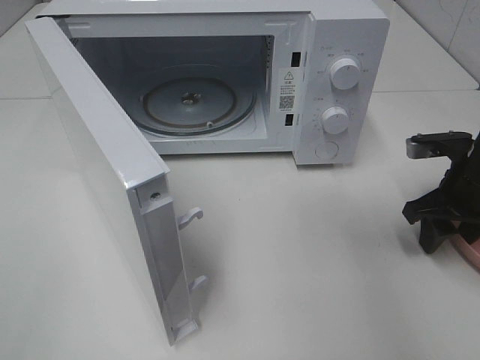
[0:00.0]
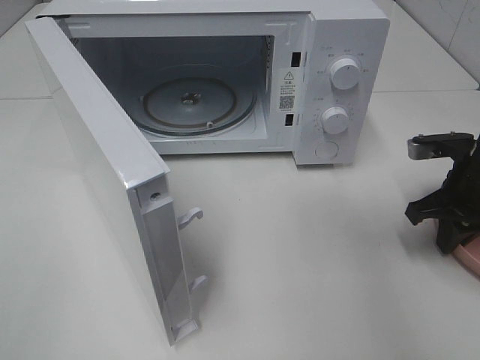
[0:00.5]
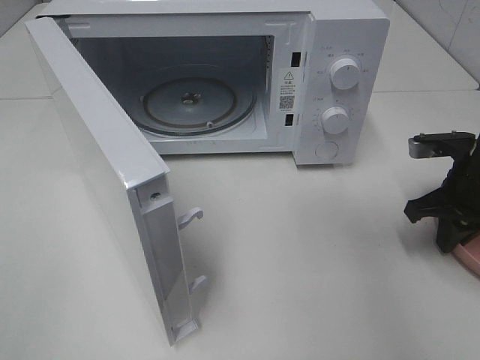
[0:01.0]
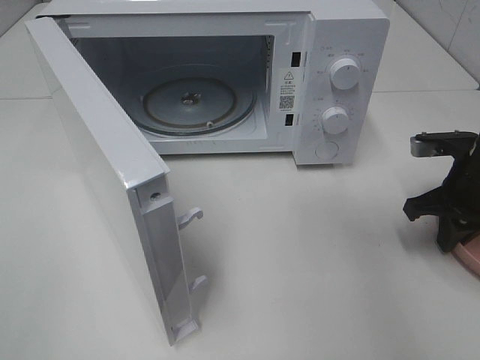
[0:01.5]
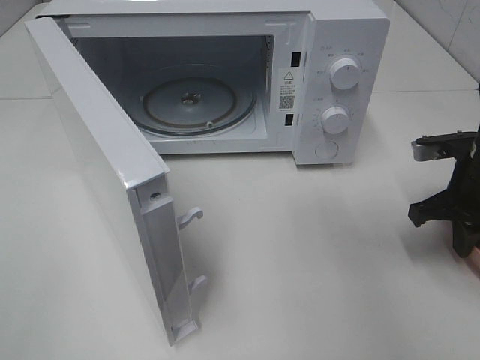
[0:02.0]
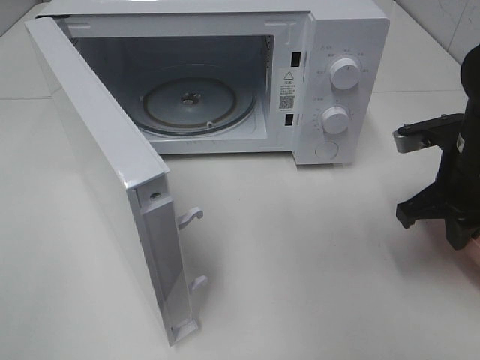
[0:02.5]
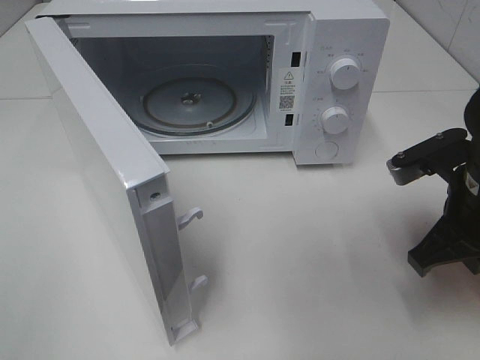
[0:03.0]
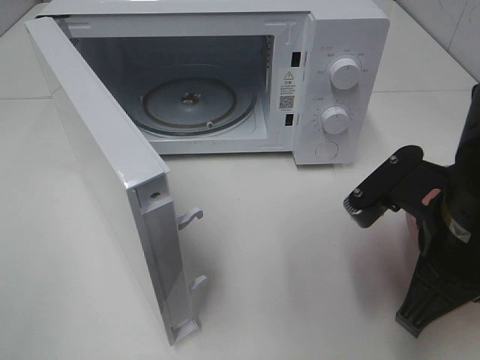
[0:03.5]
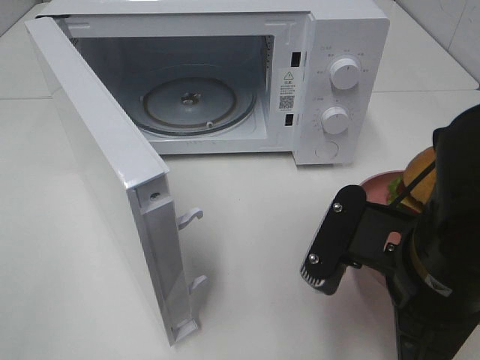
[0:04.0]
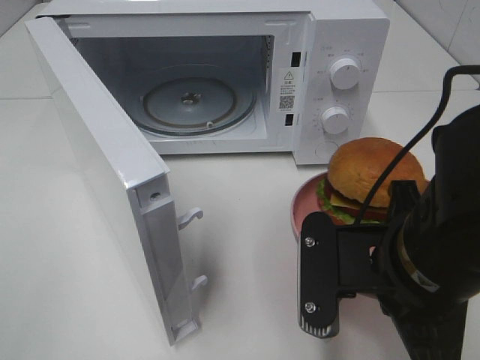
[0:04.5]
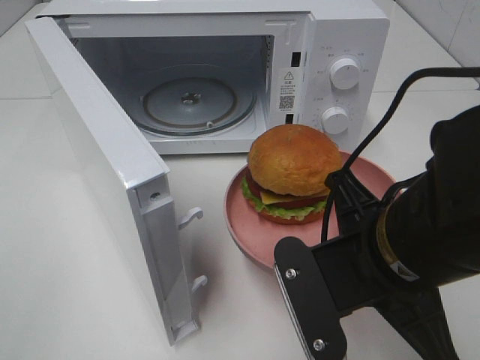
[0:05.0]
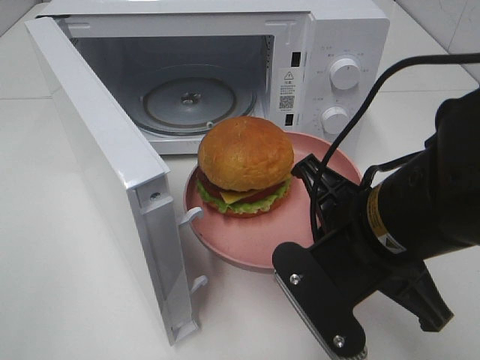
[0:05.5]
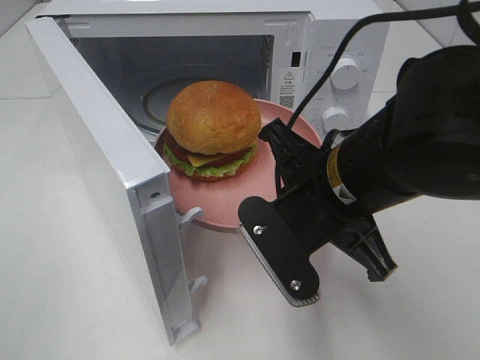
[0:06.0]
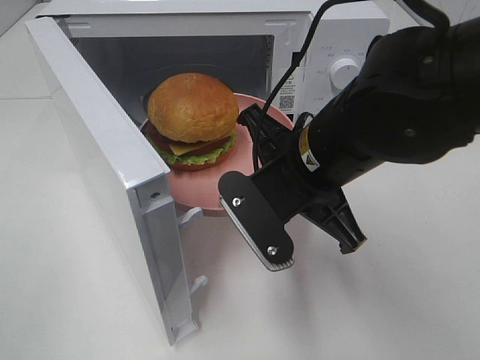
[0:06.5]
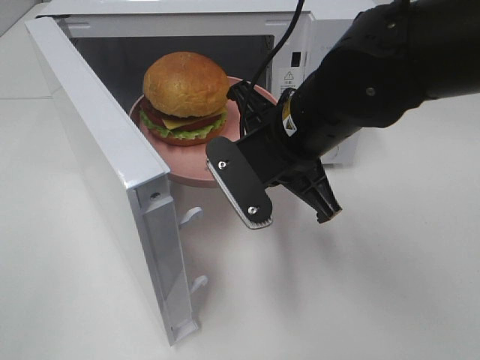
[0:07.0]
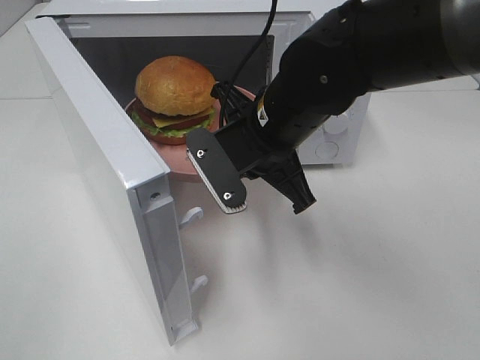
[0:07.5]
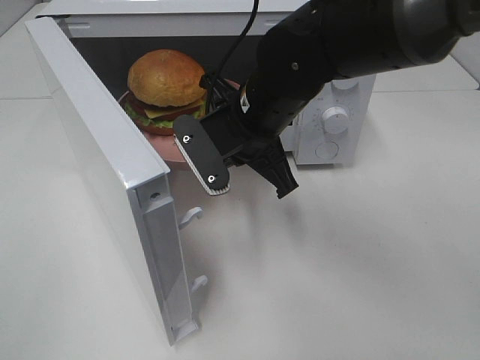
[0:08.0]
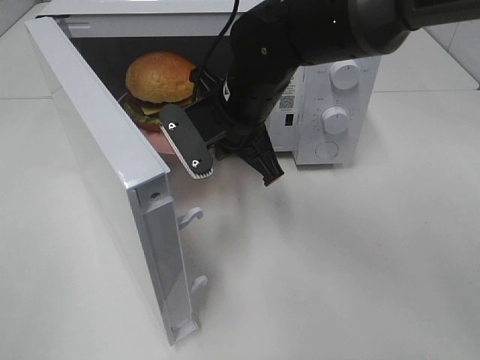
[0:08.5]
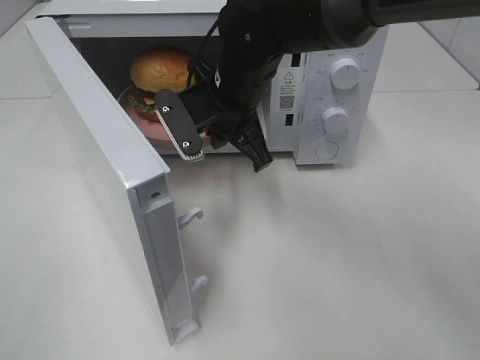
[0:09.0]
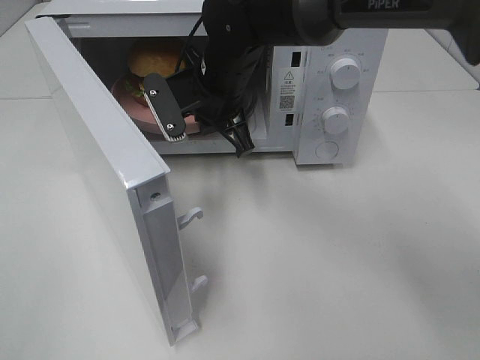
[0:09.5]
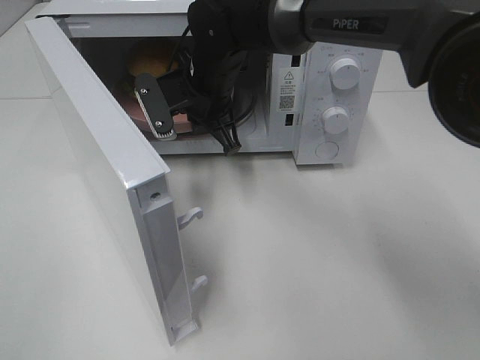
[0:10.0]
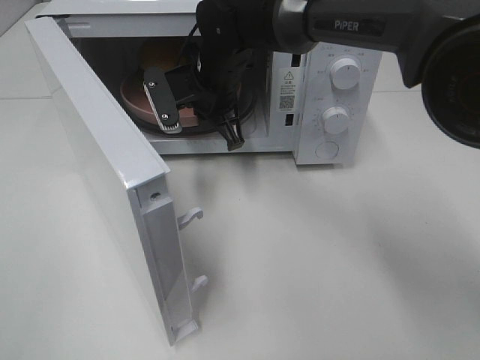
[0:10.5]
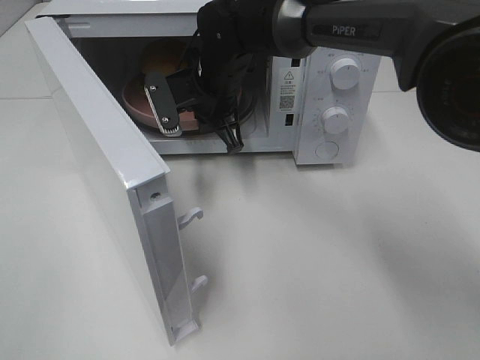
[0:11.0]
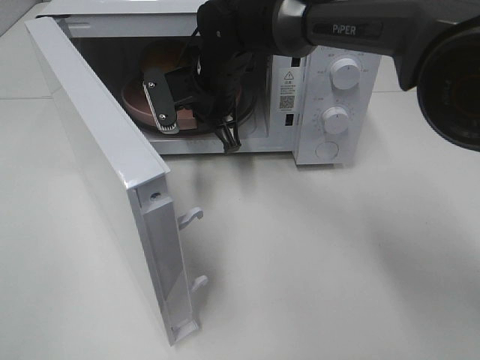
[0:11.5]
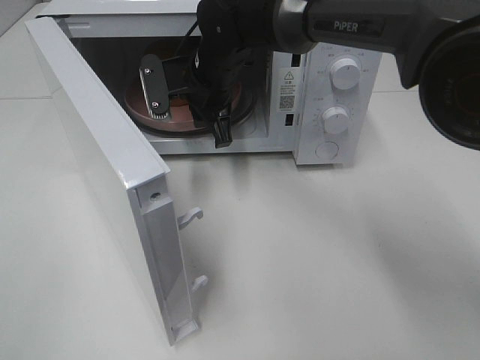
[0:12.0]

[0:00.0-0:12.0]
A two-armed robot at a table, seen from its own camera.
Task of the whole recording: Heat the burger.
Step, 2.0 to 11.5 s: Right hand: place the plate in the microwave.
0.0 to 2.0 s: The right gripper closes its fingers.
2.0 to 4.0 s: The right gripper heads backward and to the left, covering about 20 cm.
4.0 to 6.0 s: The right gripper heads forward and to the left, covering roughly 10 cm.
6.0 to 8.0 s: The right gripper moves forward and to the left, about 15 cm.
8.0 to 10.0 s: The right gripper goes about 10 cm forward and to the left.
10.0 to 12.0 s: The grippers stay close to where they were, moving slightly.

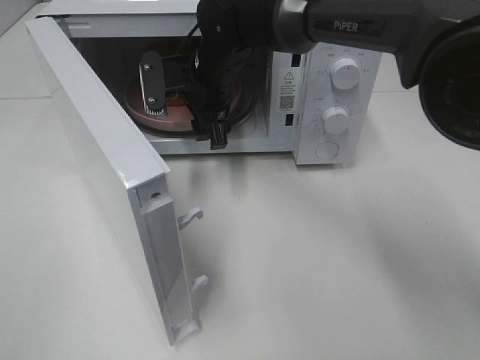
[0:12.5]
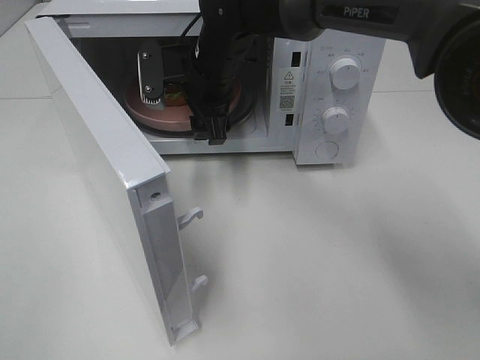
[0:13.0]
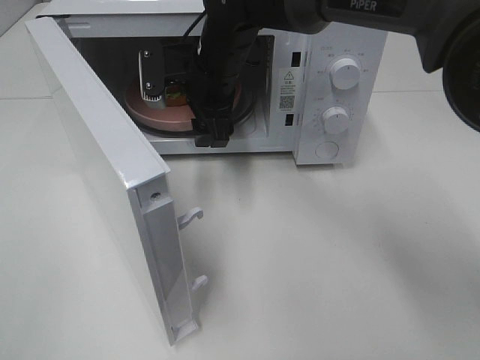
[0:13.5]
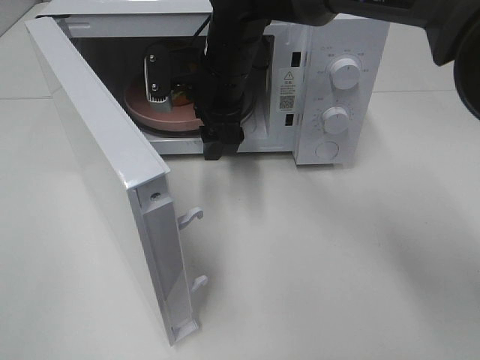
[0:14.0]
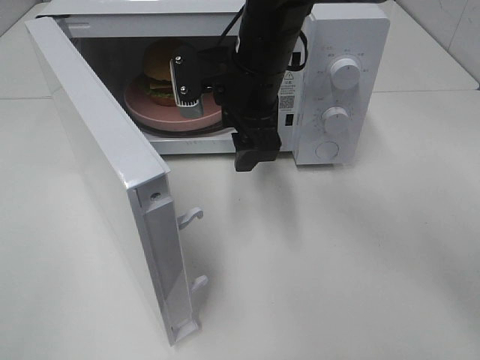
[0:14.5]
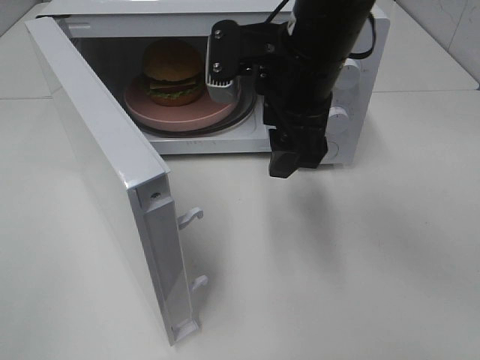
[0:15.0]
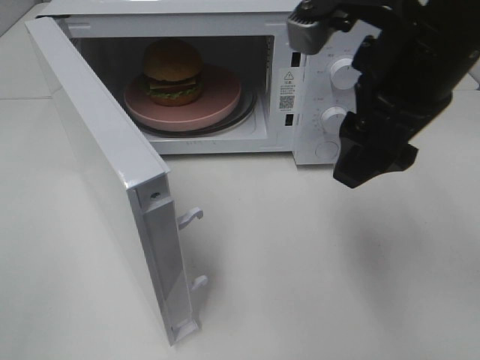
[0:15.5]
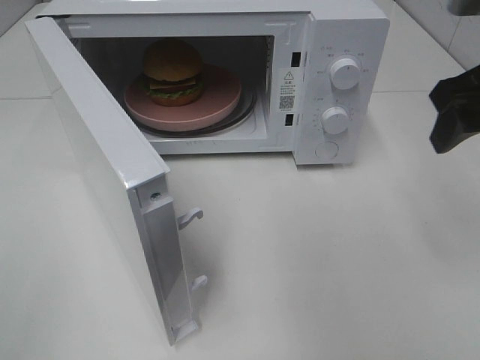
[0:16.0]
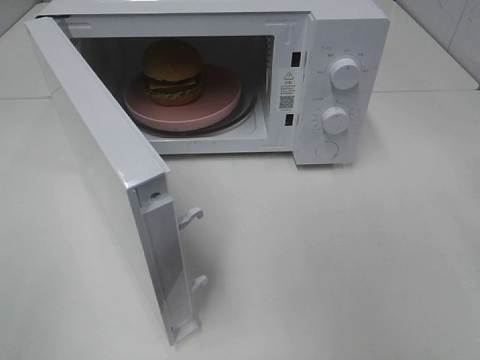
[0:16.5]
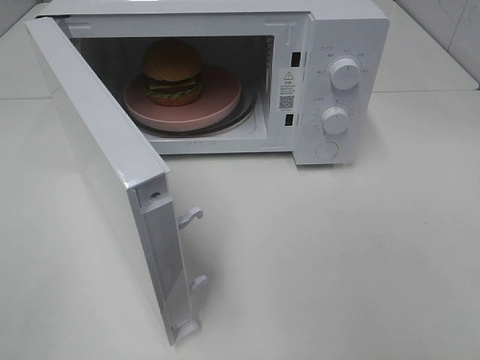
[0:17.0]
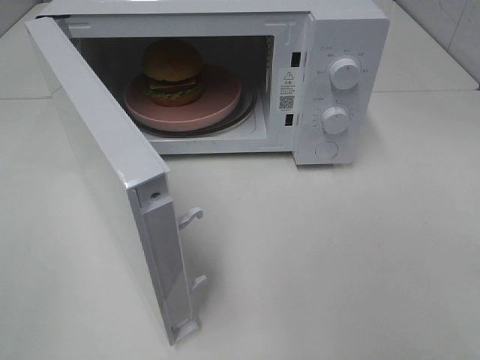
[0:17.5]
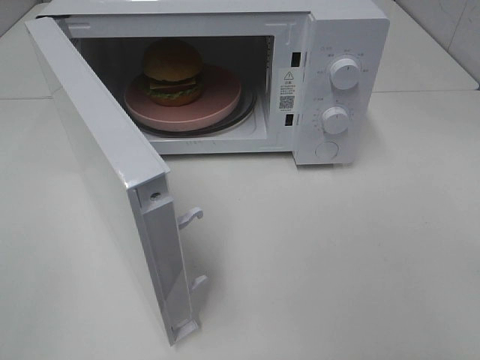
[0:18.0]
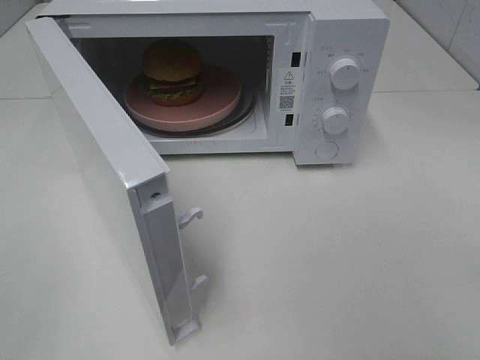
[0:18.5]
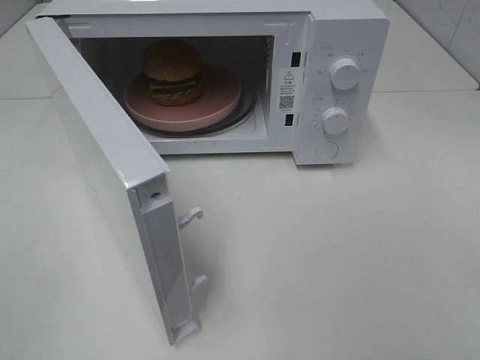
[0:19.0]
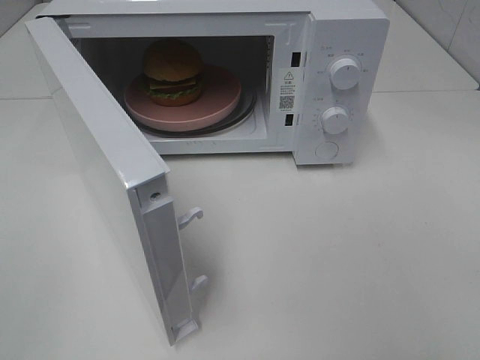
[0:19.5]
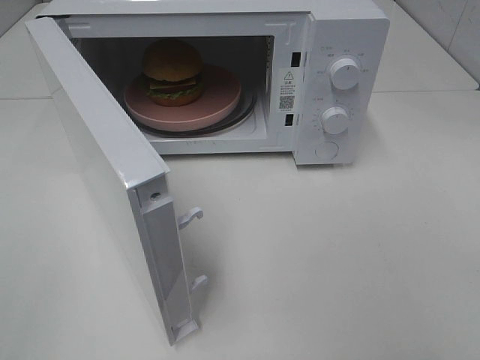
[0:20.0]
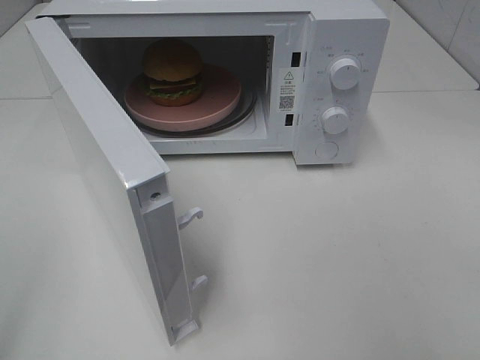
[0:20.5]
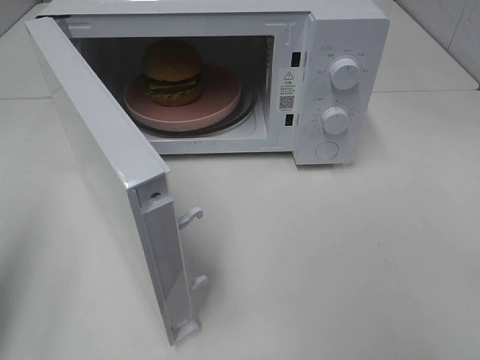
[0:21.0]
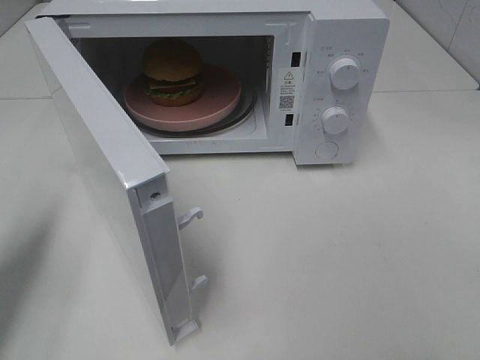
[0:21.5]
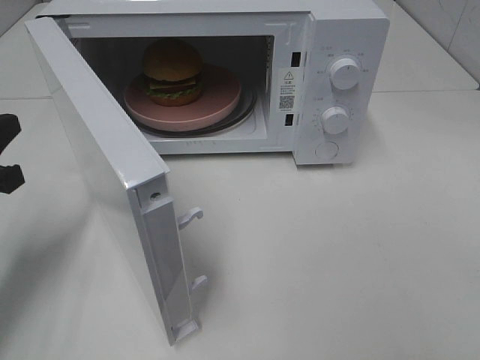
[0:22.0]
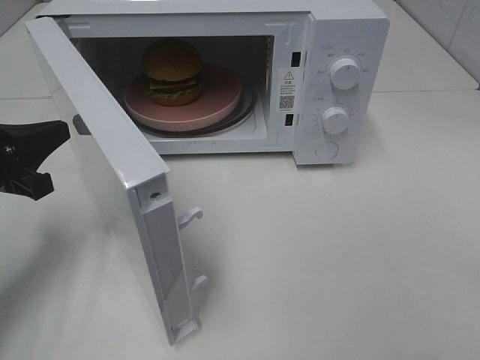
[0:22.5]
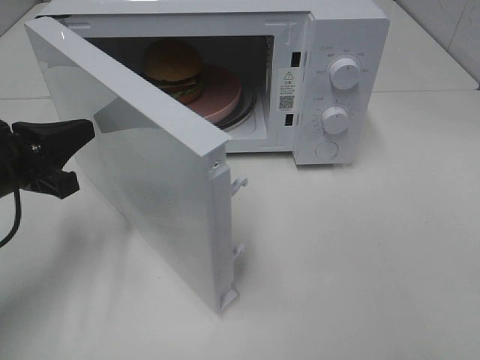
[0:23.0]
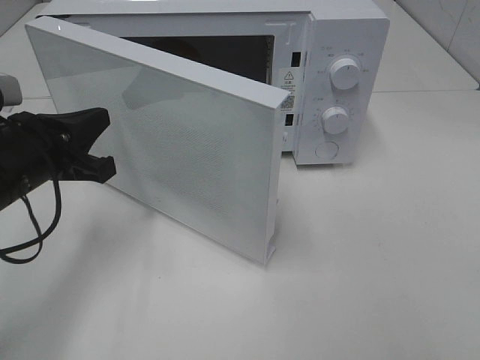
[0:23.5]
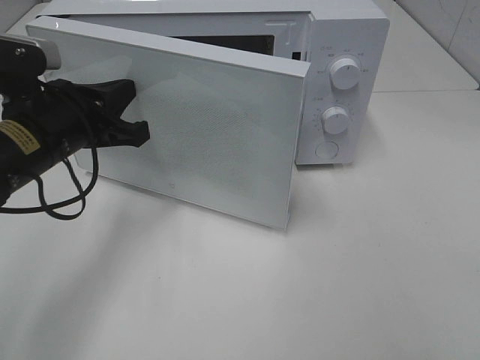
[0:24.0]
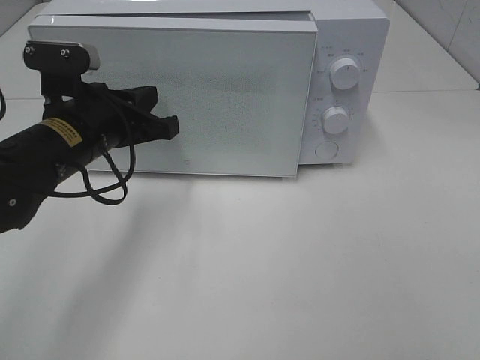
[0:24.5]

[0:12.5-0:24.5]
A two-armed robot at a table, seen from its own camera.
Task of the whole recording: Heat the burger.
12.5 to 14.5 s: The right gripper is displaced backward and to the right by approximately 10 cm.
14.5 to 16.5 s: The right gripper heads to the right and backward, covering approximately 30 cm.
20.5 to 22.5 s: The left gripper goes about 25 cm forward and downward, and closes.
22.5 to 24.5 s: The left gripper travels to the right by roughly 10 cm.

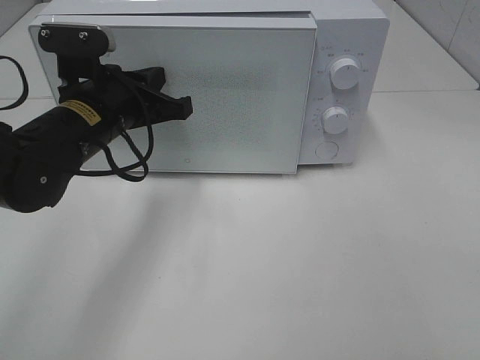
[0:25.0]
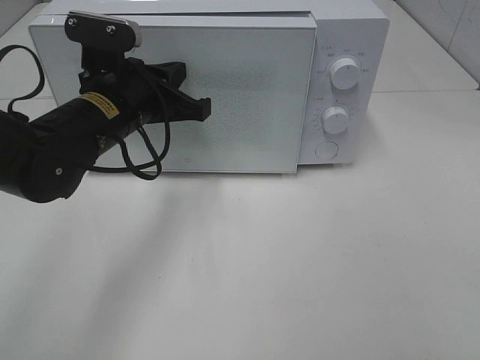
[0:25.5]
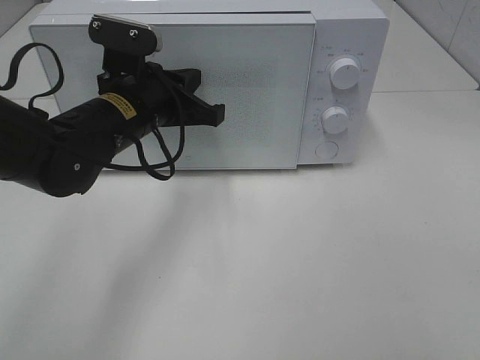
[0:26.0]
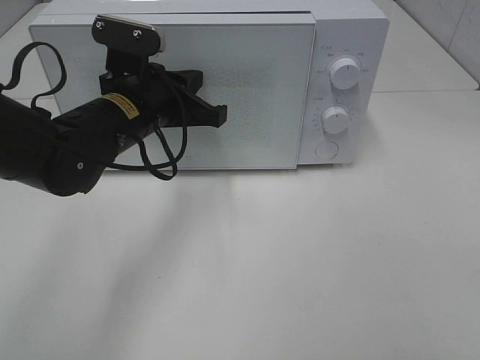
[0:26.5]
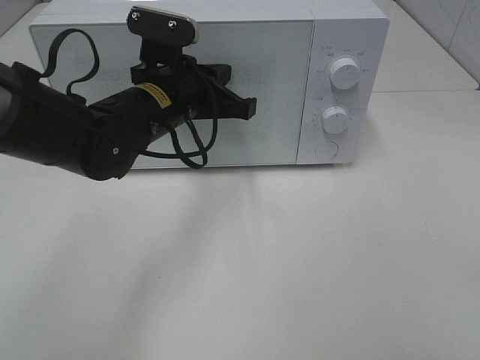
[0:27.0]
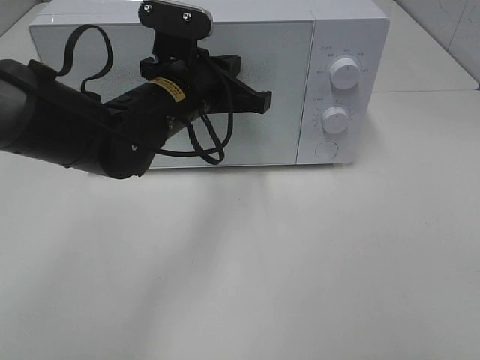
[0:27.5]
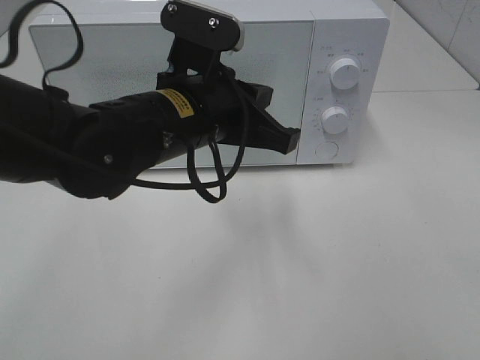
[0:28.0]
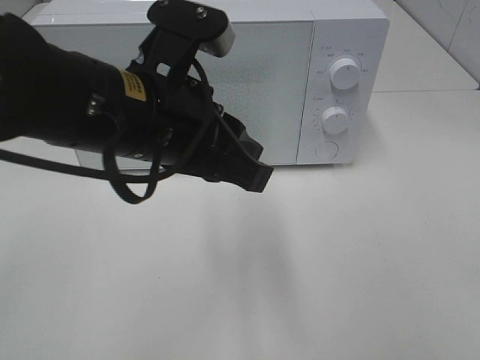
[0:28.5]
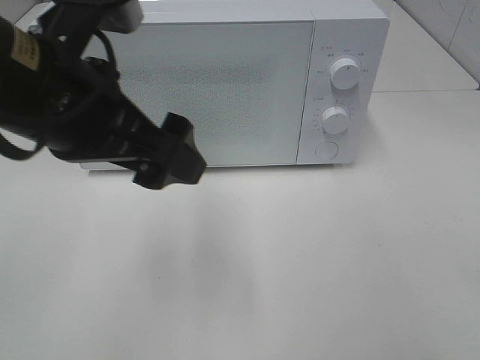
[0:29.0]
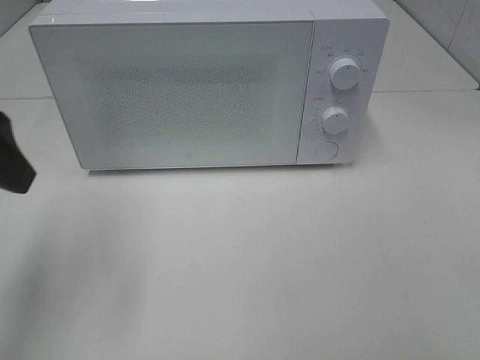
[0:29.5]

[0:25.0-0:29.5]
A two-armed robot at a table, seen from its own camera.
Task of the whole recording: Heat the burger.
Step, 25.0 to 27.0 s: Left hand: close the microwave door.
25.0 to 27.0 s: The left gripper is displaced to the right by approximately 5 cm.
27.0 to 29.5 s: The left gripper heads to the left, backward and upward, covering about 25 cm, and opens up.
